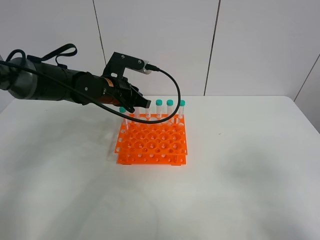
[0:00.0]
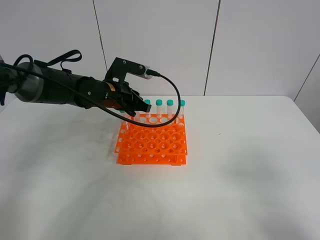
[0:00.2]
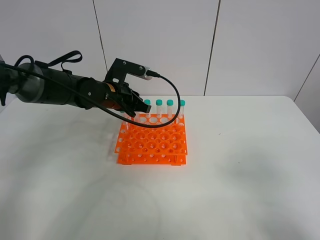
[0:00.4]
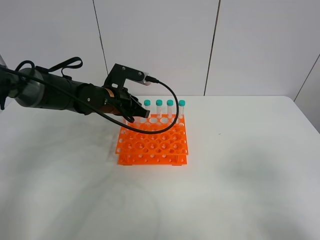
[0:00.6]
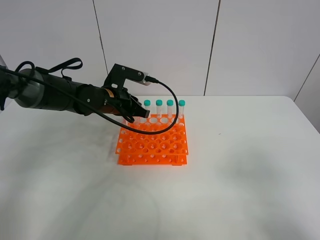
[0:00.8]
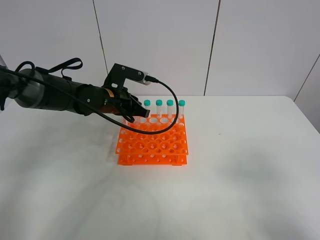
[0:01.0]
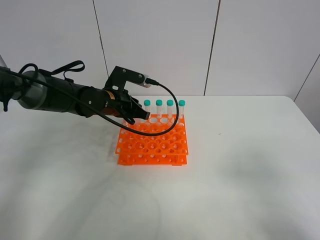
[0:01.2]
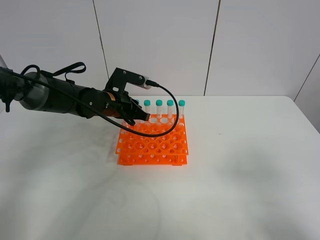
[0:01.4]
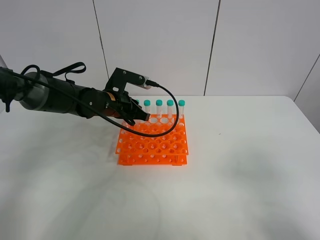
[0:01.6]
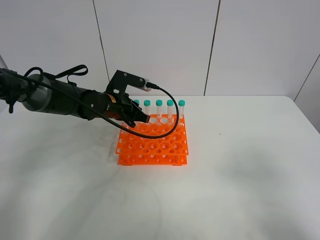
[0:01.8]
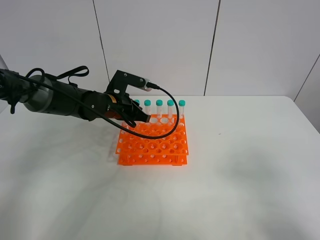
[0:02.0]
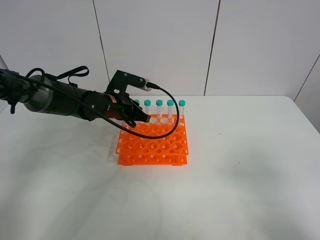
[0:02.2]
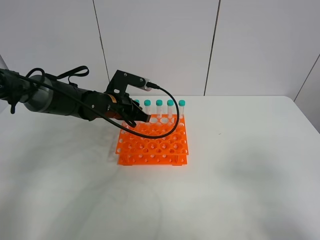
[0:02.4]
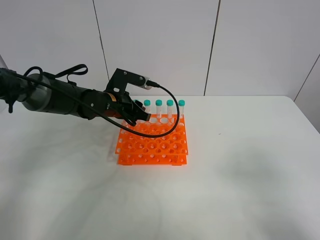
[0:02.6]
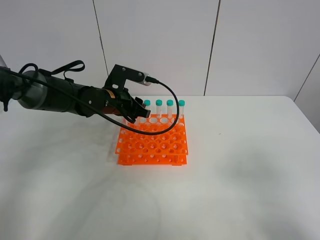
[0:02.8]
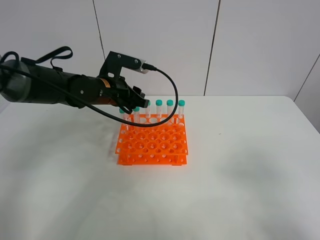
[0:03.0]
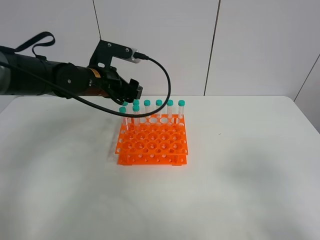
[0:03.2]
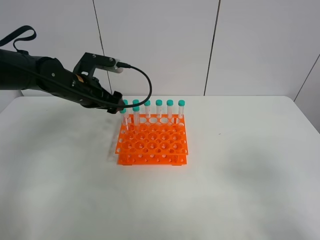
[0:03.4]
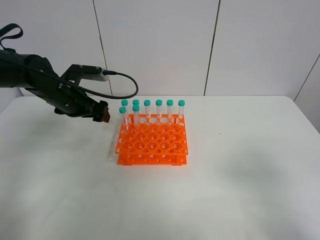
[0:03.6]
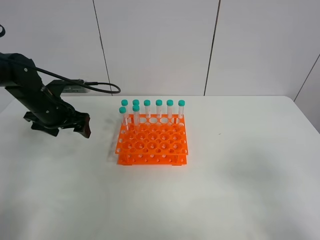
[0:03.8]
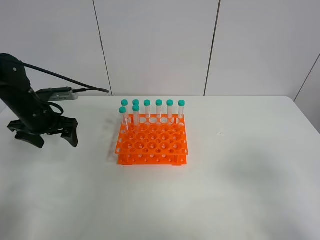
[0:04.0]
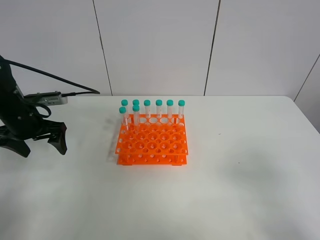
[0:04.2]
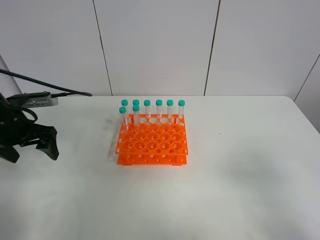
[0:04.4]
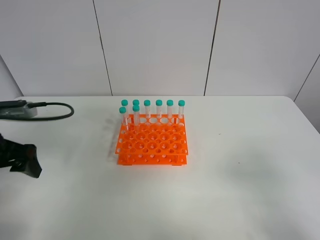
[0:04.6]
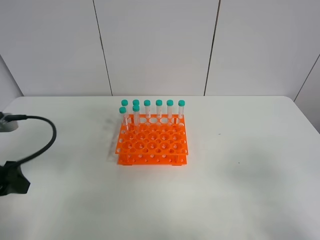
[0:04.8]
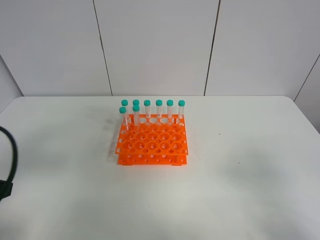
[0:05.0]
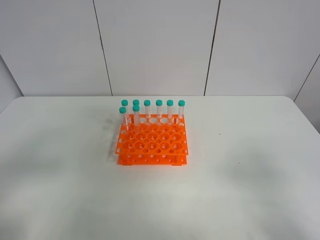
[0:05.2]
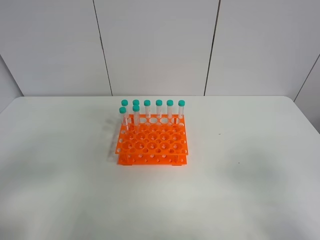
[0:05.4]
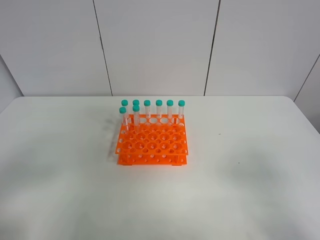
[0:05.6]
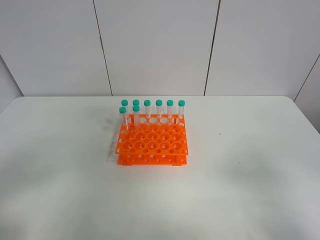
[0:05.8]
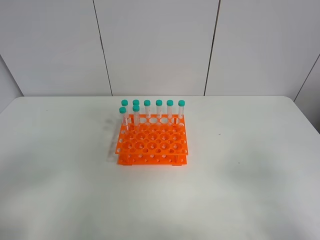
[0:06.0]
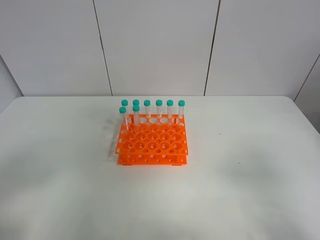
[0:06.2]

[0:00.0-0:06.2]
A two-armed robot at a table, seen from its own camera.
Task of the whole recording: Put the test tube on the table back onto the test tube rack.
Step, 0:00.0 to 0:03.6: Place the test tube on the test tube rack with the left gripper.
0:00.0 to 0:01.6: The grippers move only a little.
0:01.6 to 0:03.2: The left gripper travels upward by about 5 cm, and opens its fingers.
0:03.2 to 0:04.6: The left gripper shifts approximately 25 cm backward and to the left.
0:04.6 to 0:06.2: The left gripper moves backward, some 20 cm.

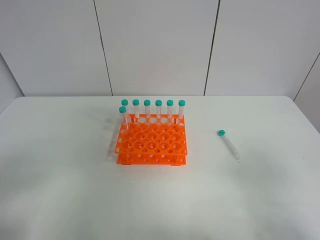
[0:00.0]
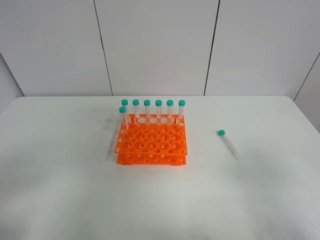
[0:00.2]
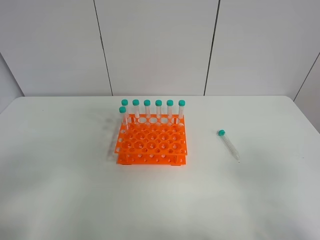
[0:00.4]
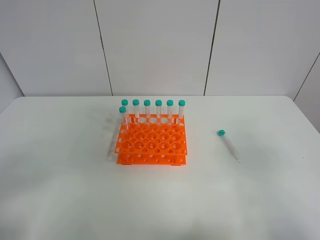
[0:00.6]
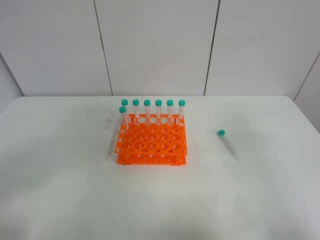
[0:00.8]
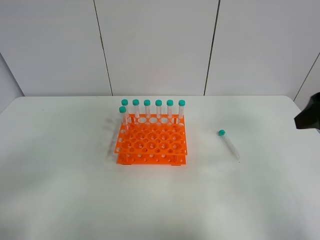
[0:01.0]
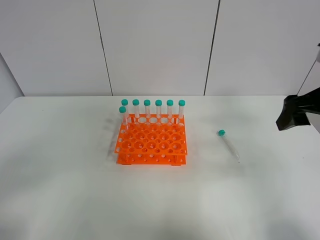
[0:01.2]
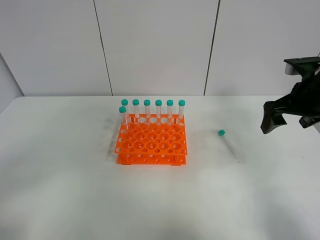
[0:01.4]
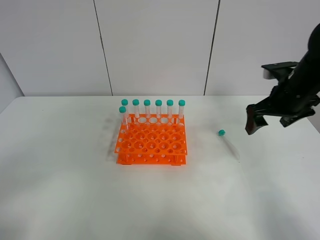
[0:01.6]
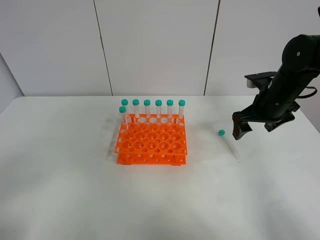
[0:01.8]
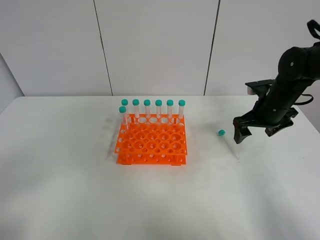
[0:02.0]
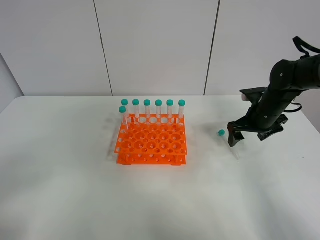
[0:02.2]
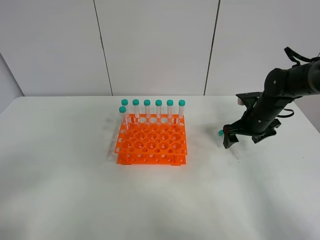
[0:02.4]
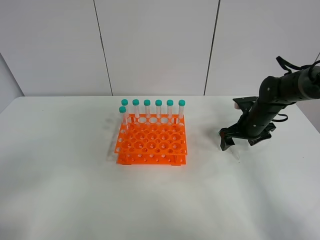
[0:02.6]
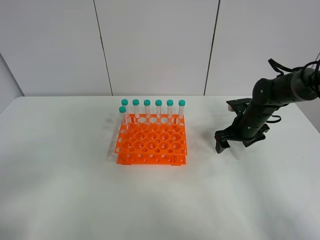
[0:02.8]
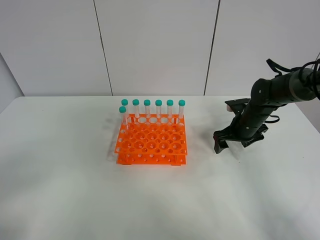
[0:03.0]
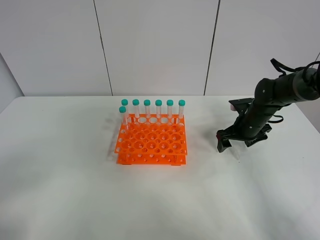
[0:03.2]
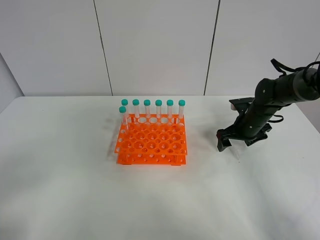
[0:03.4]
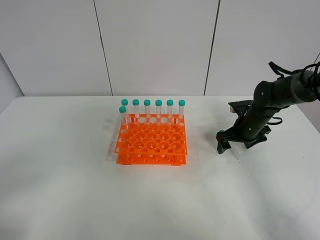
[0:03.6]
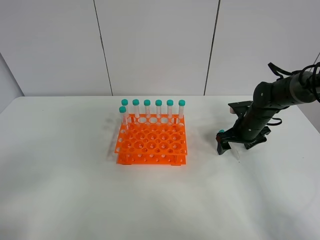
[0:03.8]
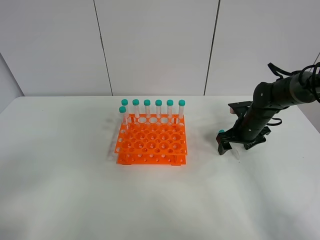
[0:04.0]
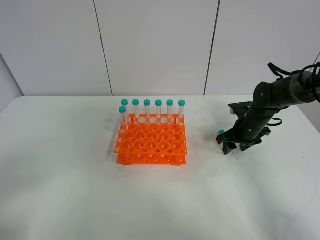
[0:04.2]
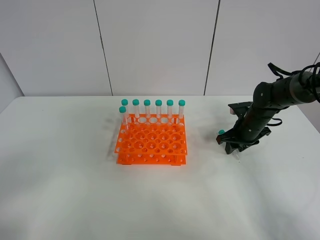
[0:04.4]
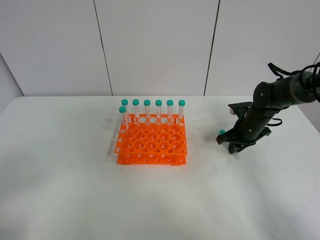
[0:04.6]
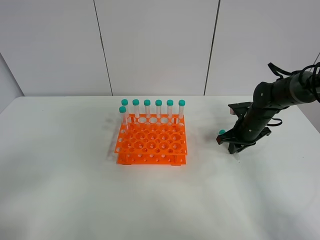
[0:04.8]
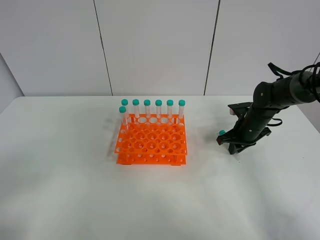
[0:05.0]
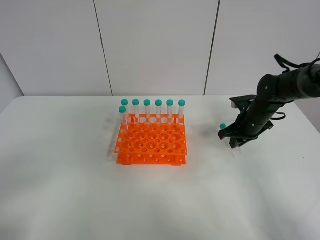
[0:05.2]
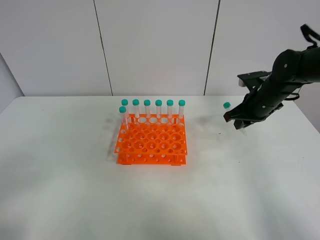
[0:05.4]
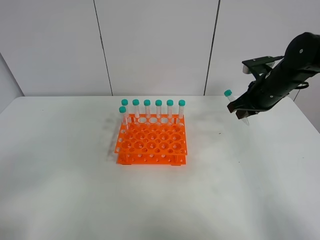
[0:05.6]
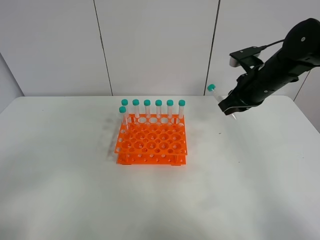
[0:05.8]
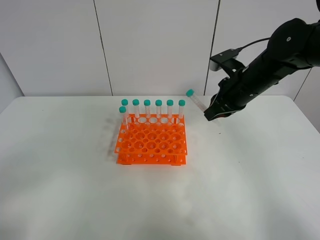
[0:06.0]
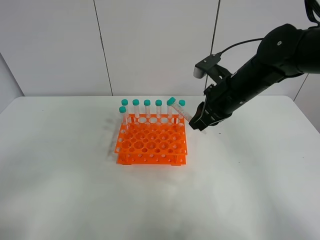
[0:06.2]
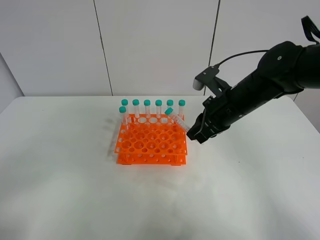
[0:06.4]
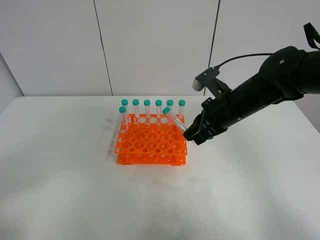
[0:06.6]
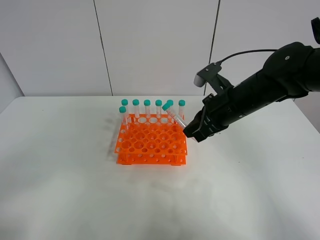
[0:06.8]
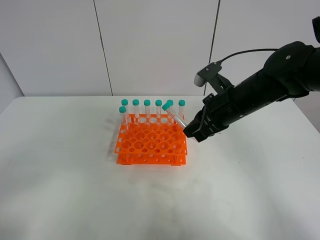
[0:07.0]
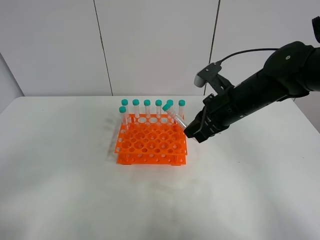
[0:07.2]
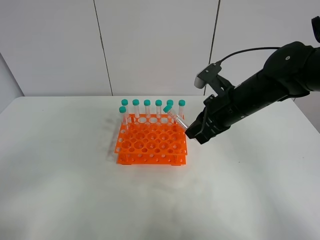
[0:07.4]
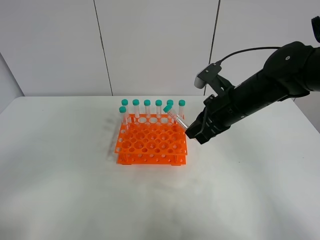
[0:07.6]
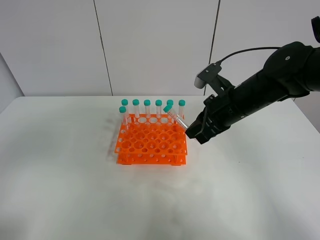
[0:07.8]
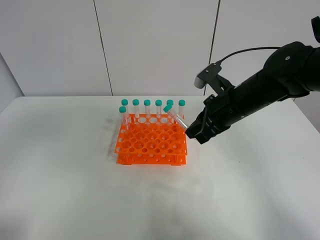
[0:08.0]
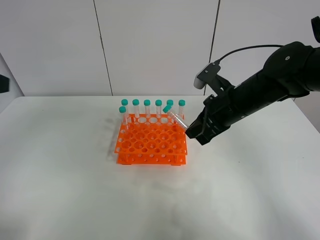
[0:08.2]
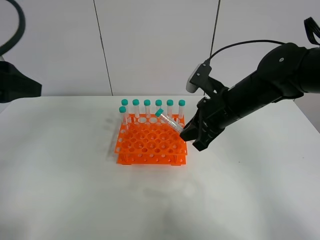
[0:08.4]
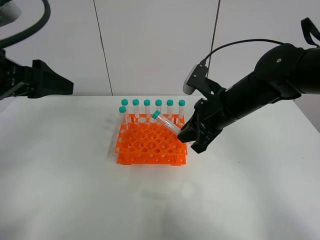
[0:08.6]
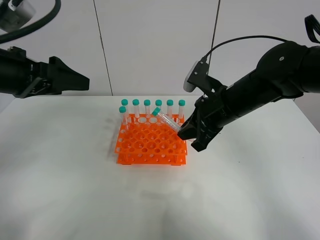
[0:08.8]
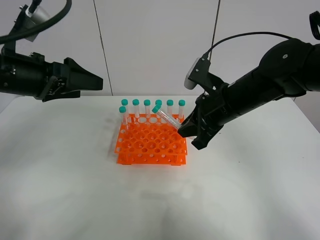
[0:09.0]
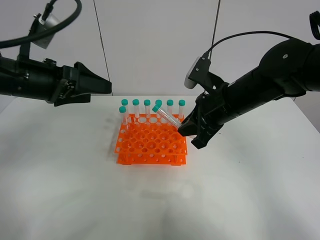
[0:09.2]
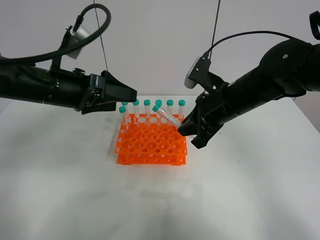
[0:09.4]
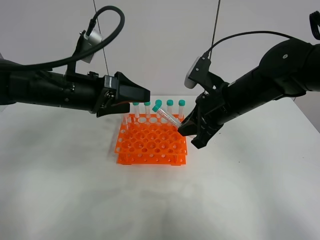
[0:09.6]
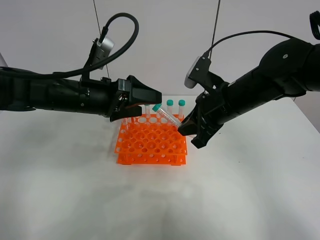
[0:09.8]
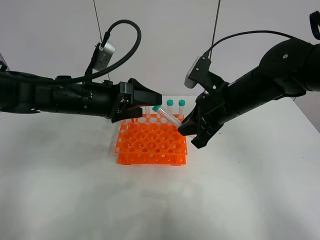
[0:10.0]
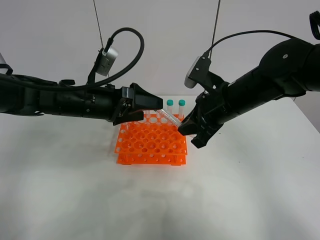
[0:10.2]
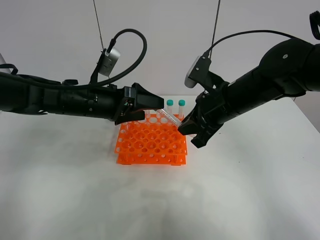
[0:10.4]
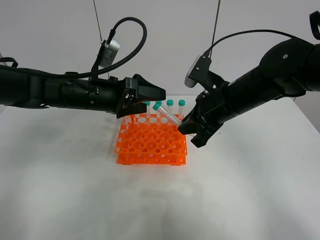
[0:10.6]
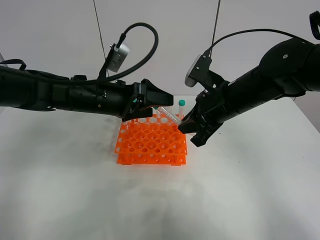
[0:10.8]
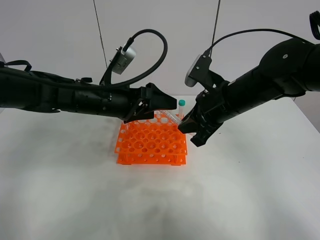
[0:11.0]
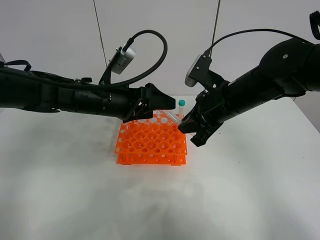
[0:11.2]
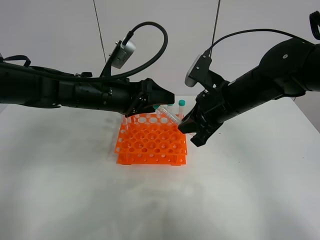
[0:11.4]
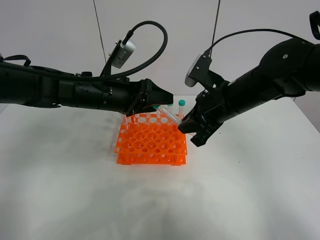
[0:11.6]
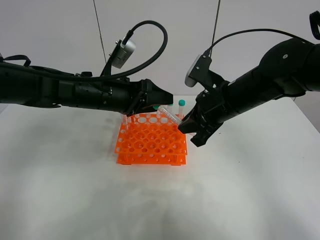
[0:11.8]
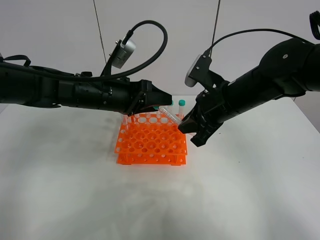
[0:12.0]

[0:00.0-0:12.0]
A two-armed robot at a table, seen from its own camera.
Task of the whole recording: Put the test tube on the table back onto the test tube rack.
Step, 0:00.0 to 0:05.6: Pick up the test tube with the right gripper.
0:00.0 to 0:01.6: The right gripper shifts about 30 cm forward.
0:01.6 to 0:03.0: The right gripper moves downward and forward, approximately 15 cm.
0:03.0 to 0:04.4: The right gripper closes up.
0:04.4 to 0:06.0: The right gripper moves upward and to the left, some 15 cm, and closes.
0:06.0 to 0:07.6: The right gripper changes place by roughly 5 cm.
0:07.6 to 0:09.0: The left gripper moves forward, approximately 30 cm.
0:09.0 to 0:10.4: The left gripper is displaced to the right and downward by some 15 cm.
0:10.4 to 0:12.0: The left gripper closes.

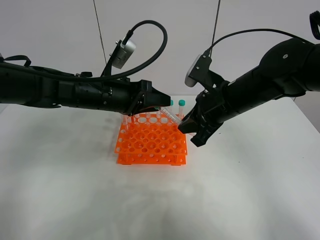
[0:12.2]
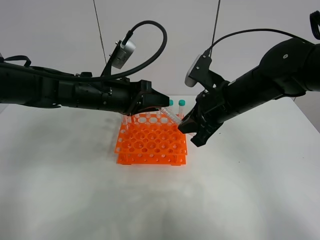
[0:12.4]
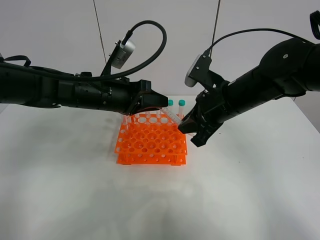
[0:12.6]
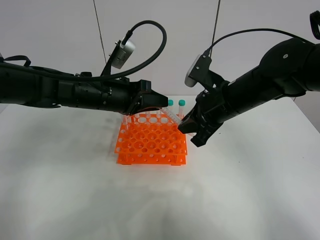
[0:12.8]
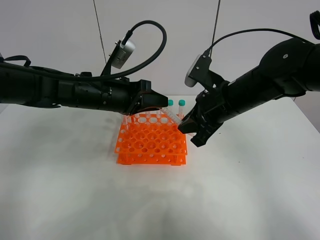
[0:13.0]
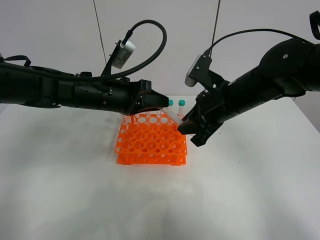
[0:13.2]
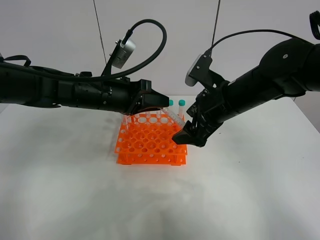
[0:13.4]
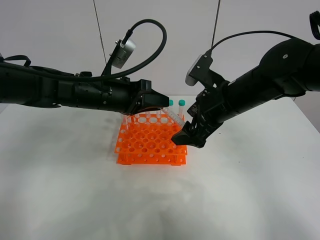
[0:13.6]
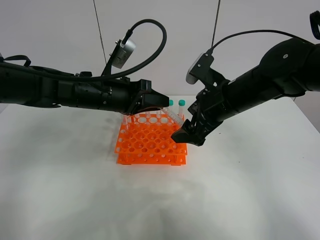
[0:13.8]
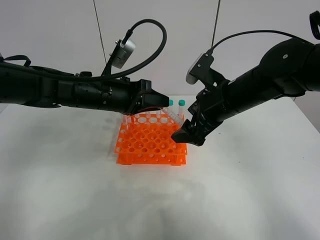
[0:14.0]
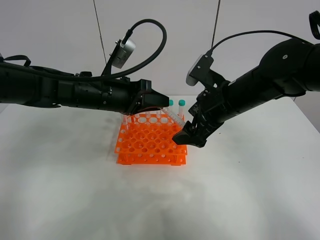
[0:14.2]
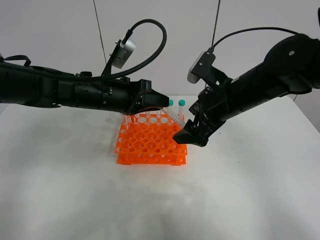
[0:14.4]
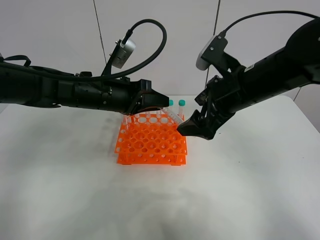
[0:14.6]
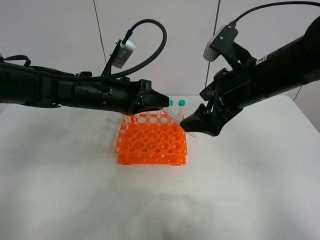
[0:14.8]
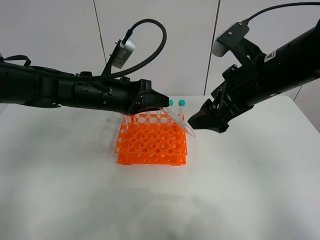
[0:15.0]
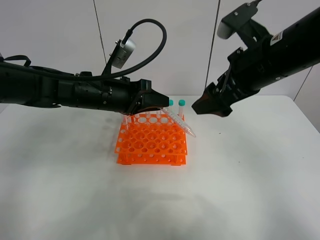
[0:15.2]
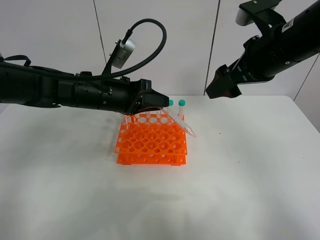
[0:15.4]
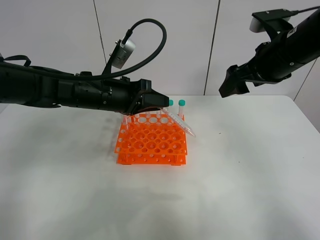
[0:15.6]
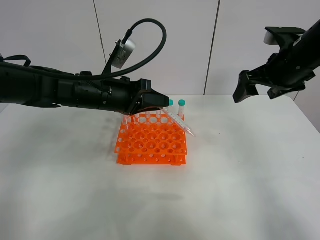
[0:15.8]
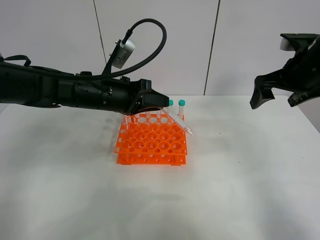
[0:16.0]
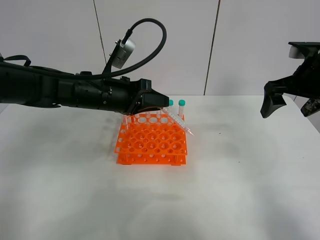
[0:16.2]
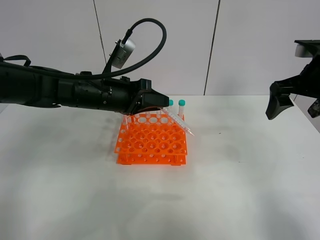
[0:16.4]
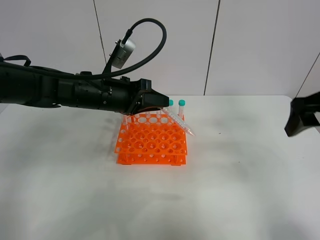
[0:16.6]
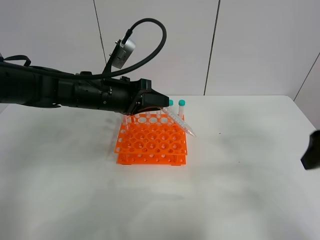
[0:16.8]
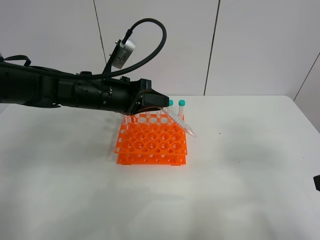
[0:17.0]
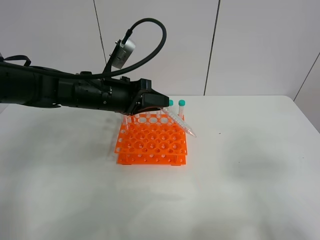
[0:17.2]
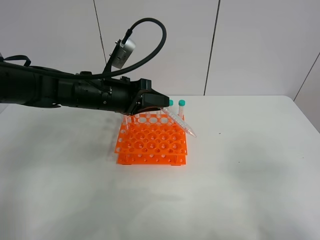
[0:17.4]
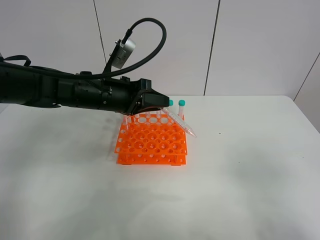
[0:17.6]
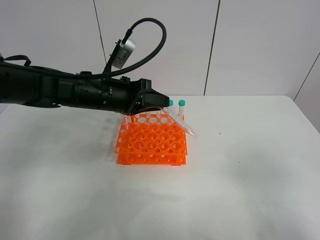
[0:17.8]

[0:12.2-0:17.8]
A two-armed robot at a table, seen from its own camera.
Task of the whole recording: Put the test tube on the table back onto the test tube rack.
Step, 0:12.2 to 0:15.4: Move the test tube from the right gripper to the left gripper.
0:12.2 to 0:13.6: The right gripper opens.
0:13.6 to 0:15.0: The right gripper is displaced upward by some 5 cm.
0:15.0 to 0:16.4: The right gripper is displaced to the right by some 15 cm.
0:16.4 to 0:17.8: The right gripper travels backward by some 30 cm.
